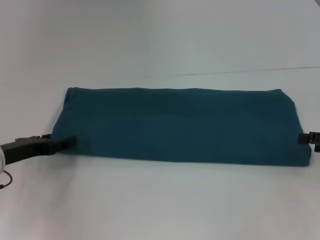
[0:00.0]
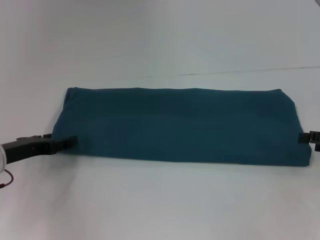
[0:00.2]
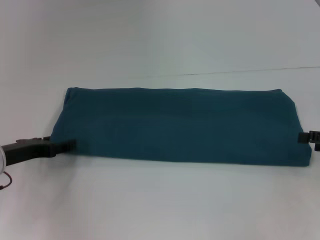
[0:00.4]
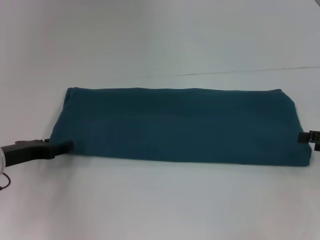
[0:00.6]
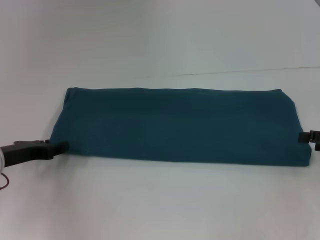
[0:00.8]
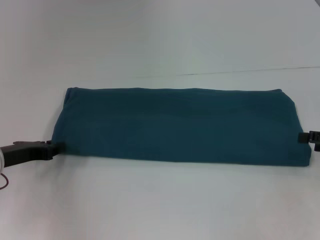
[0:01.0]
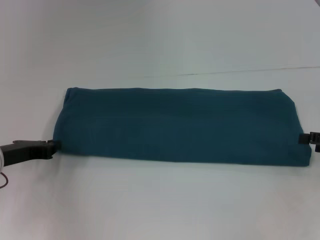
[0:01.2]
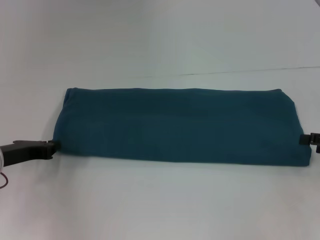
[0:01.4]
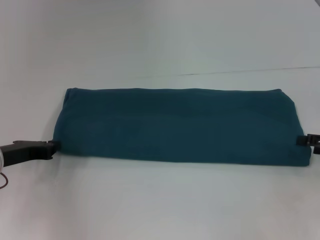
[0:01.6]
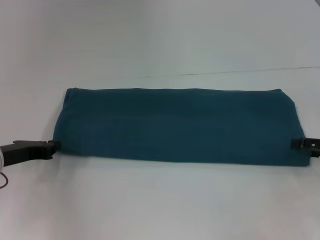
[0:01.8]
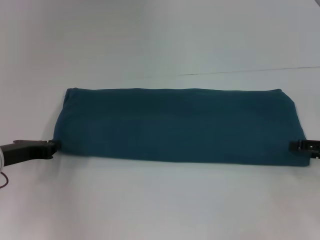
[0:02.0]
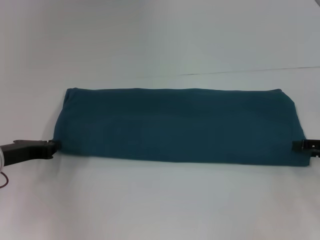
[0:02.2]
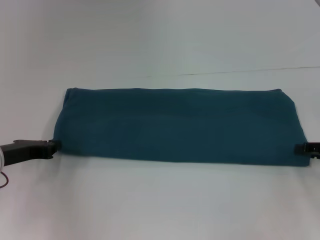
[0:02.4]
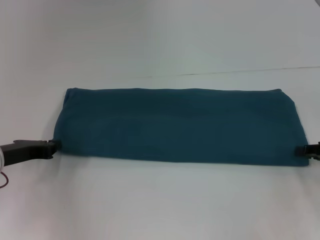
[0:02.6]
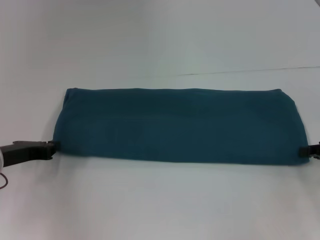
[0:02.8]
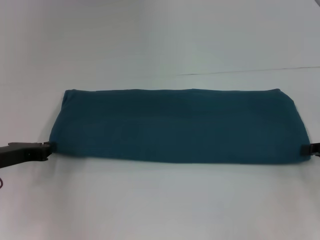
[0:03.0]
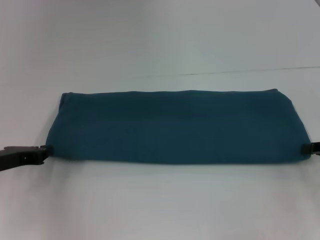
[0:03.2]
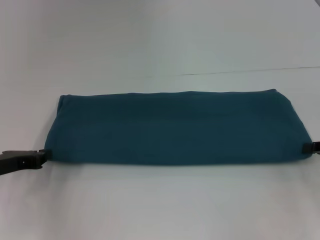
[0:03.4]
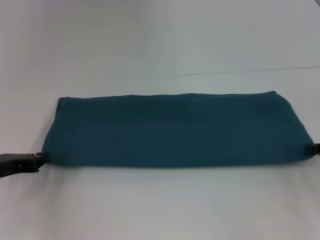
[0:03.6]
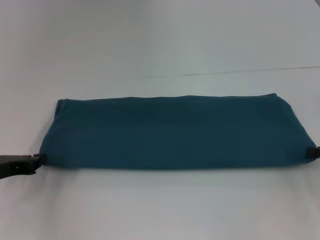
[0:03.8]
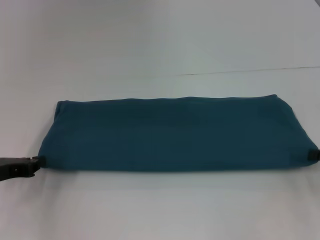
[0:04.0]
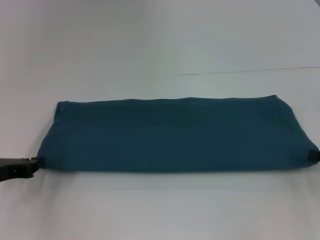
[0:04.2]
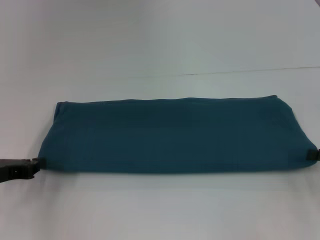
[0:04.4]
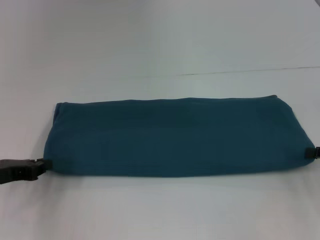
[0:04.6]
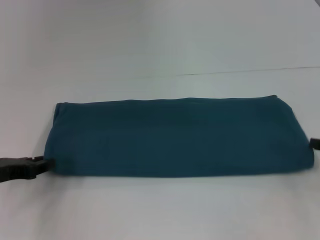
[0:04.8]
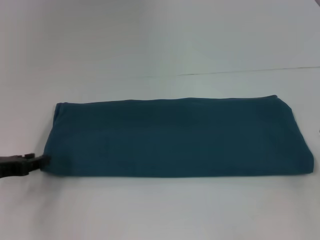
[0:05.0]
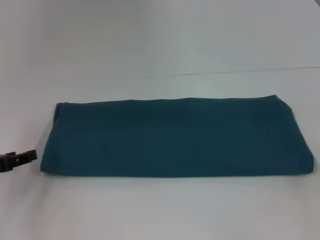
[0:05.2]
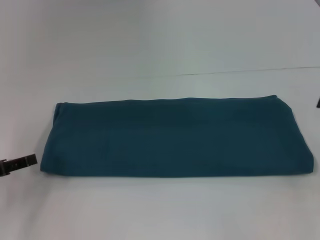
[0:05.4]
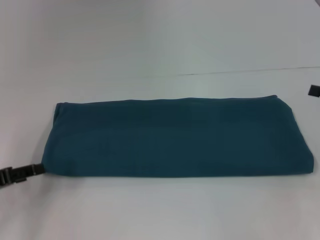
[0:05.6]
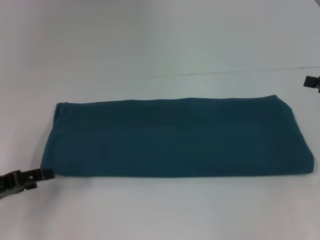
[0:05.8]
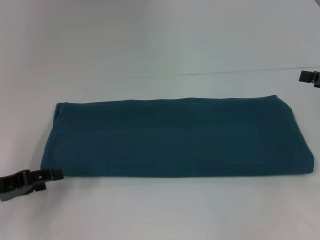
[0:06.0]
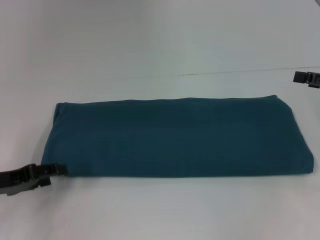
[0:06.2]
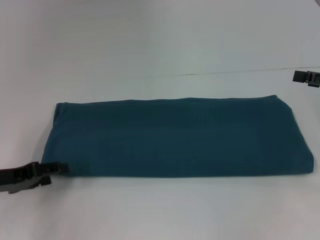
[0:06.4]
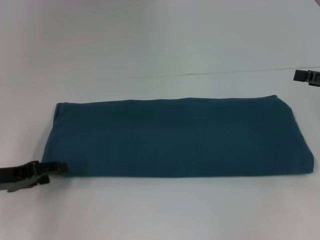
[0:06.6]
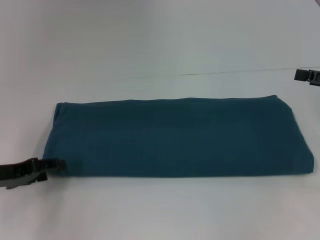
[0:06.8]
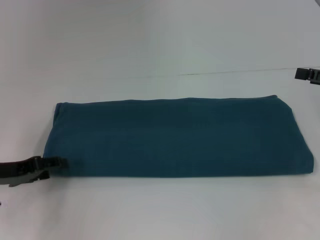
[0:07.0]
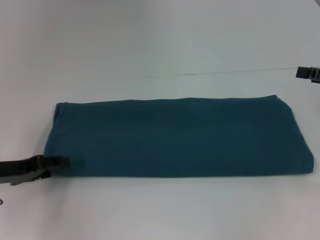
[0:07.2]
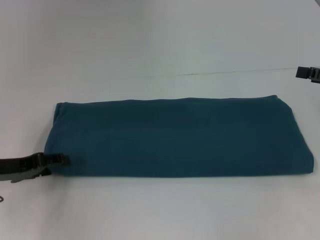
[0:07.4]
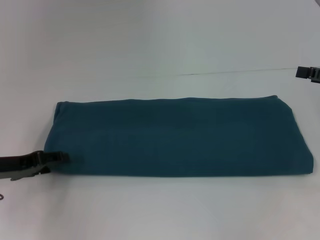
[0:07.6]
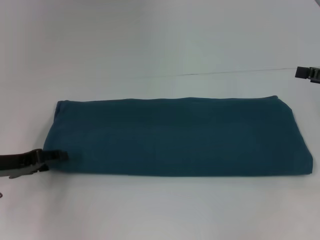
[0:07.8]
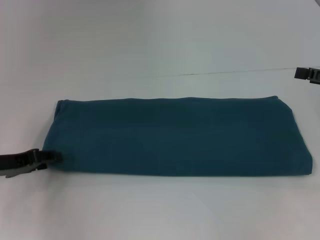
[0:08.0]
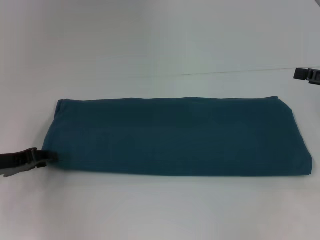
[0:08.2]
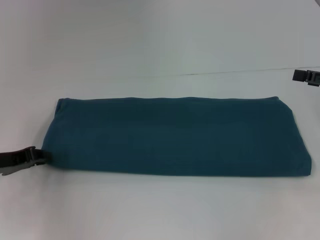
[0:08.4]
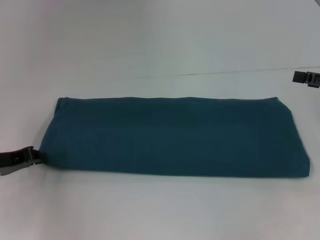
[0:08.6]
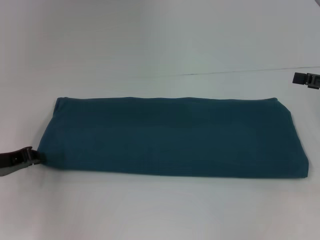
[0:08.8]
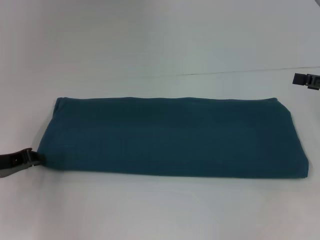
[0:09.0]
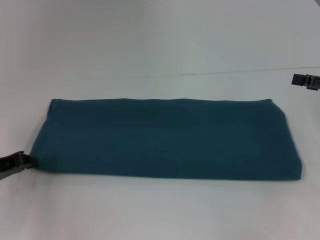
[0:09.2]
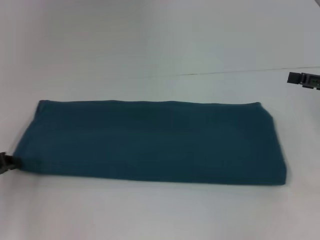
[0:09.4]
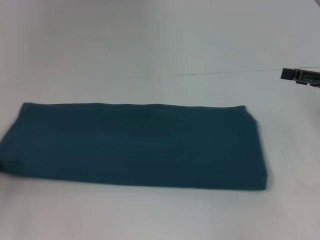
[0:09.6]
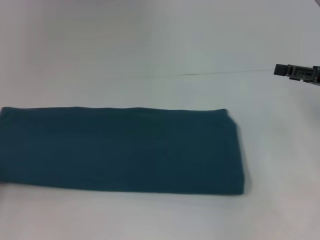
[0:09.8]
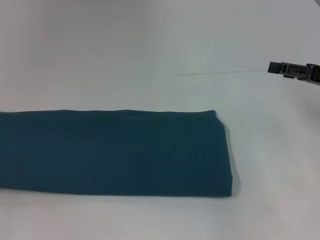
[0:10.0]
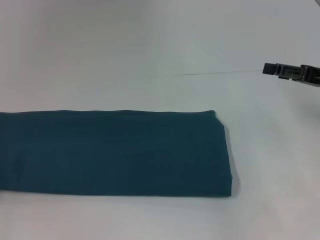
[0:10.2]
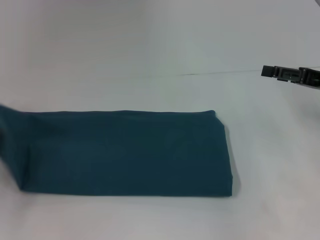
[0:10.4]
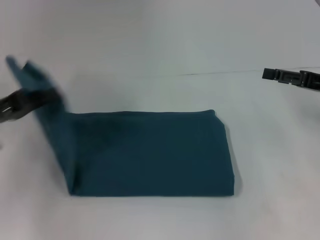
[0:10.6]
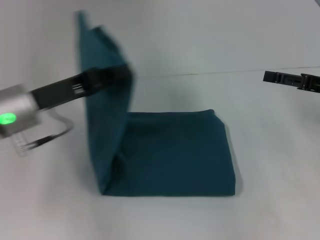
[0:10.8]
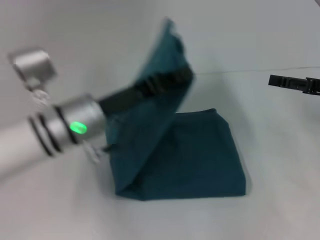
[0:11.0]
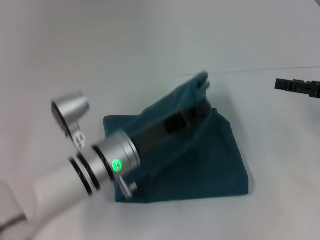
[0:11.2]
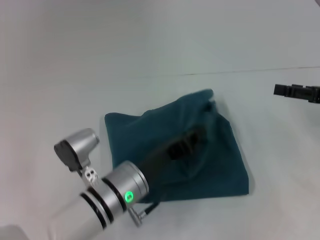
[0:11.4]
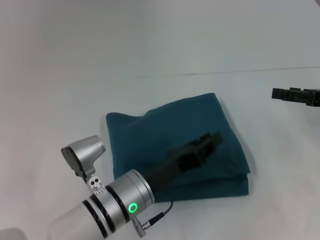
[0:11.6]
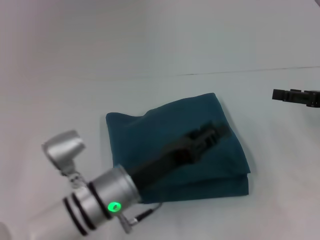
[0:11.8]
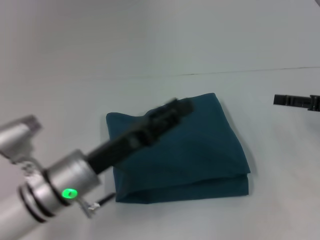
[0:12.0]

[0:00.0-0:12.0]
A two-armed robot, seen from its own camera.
Step, 0:00.0 to 0:11.6: Fold the clothes to the left.
0:00.0 to 0:01.6: The left gripper closes up.
0:01.6 to 0:03.0: The right gripper closes up.
0:03.0 to 0:04.4: The grippers move only a little.
0:04.4 to 0:06.0: The left gripper opens. Meanwhile the right gripper goes approximately 10 cm upward and forward, and opens.
0:06.0 to 0:07.6: There are only small adjustments of the grippers.
0:07.6 to 0:09.0: The left gripper closes up.
0:09.0 to 0:10.4: The left gripper travels to the left by some 5 cm.
0:10.4 to 0:12.0: The left gripper is displaced to the right by approximately 25 cm, and opens its fingers.

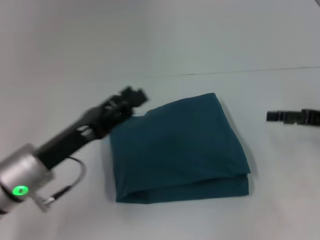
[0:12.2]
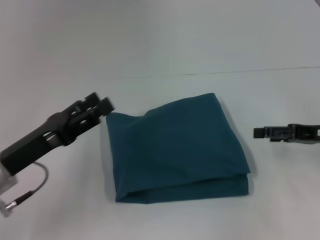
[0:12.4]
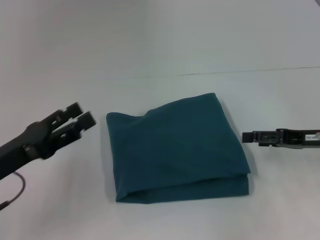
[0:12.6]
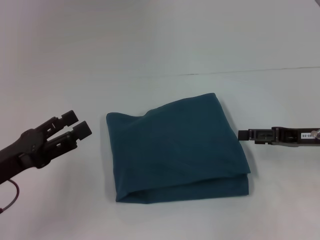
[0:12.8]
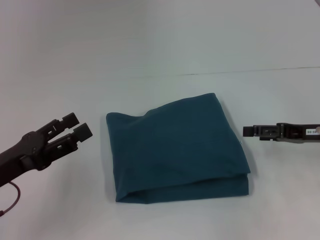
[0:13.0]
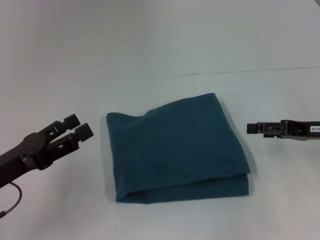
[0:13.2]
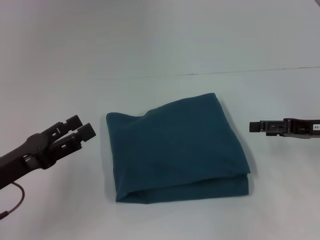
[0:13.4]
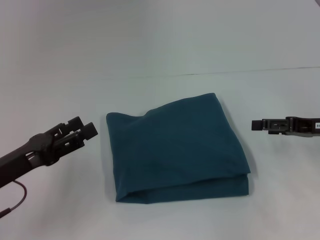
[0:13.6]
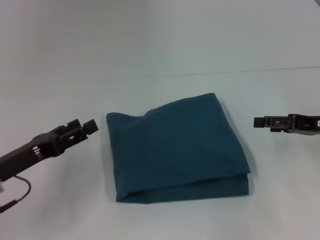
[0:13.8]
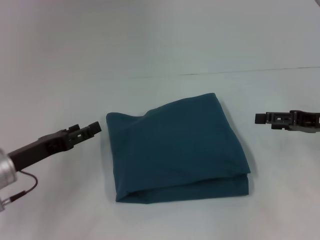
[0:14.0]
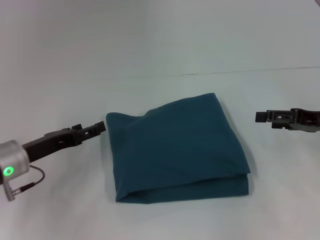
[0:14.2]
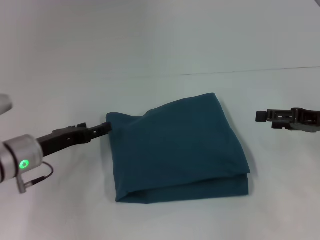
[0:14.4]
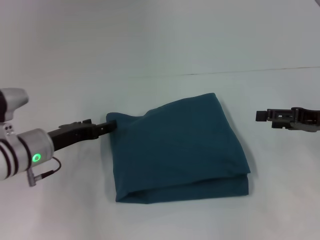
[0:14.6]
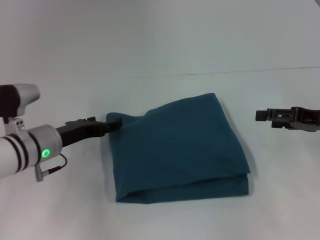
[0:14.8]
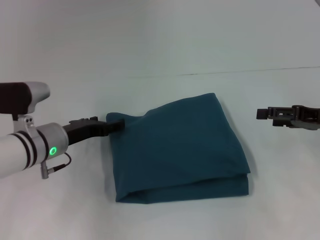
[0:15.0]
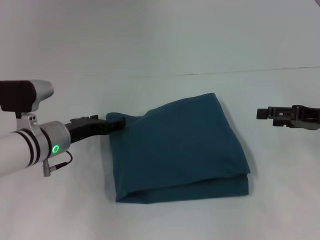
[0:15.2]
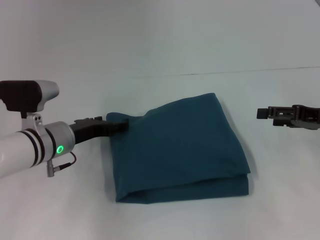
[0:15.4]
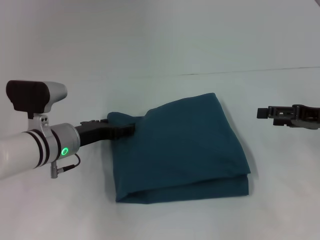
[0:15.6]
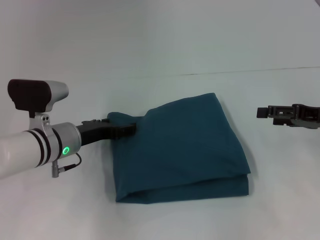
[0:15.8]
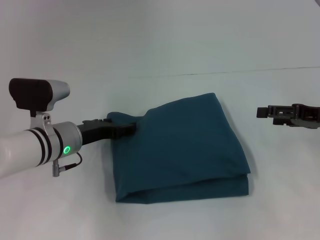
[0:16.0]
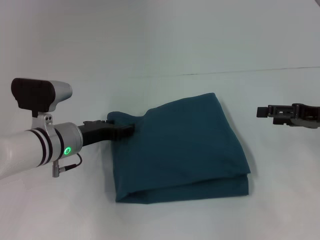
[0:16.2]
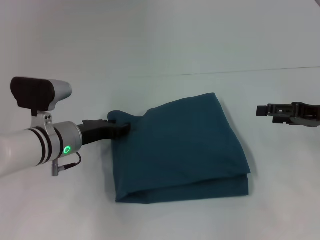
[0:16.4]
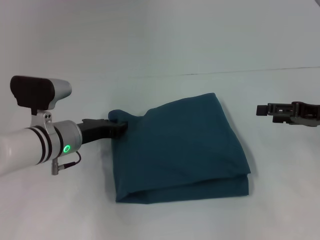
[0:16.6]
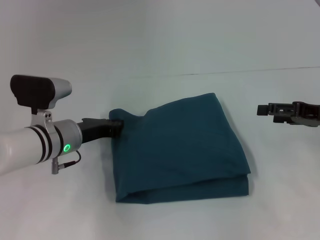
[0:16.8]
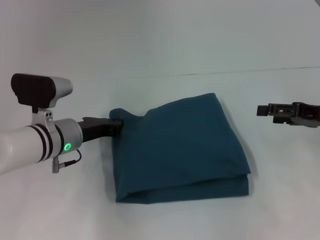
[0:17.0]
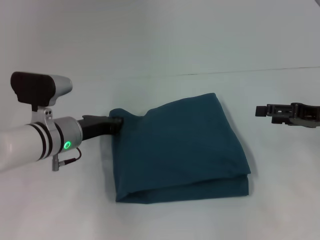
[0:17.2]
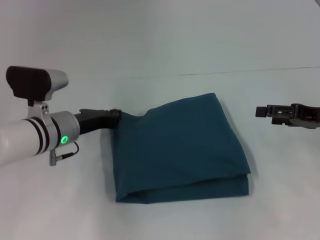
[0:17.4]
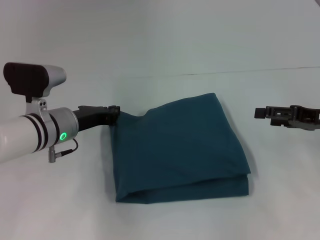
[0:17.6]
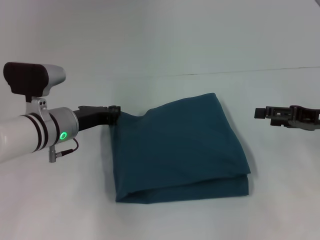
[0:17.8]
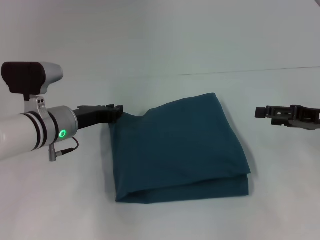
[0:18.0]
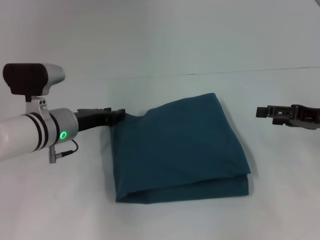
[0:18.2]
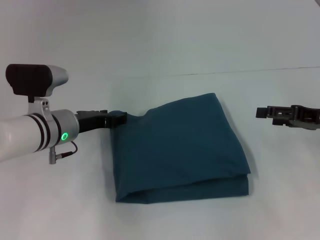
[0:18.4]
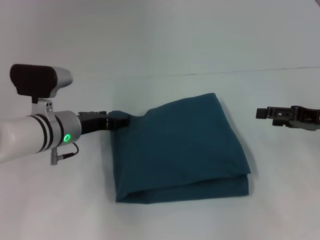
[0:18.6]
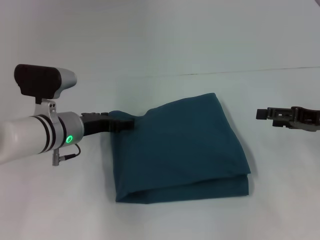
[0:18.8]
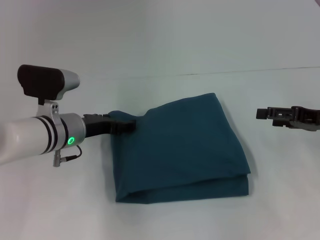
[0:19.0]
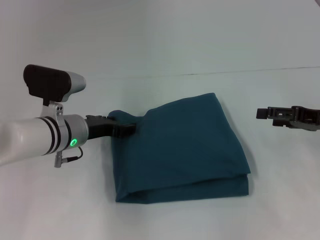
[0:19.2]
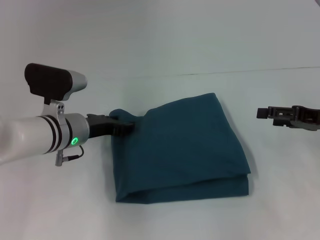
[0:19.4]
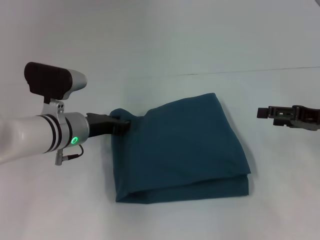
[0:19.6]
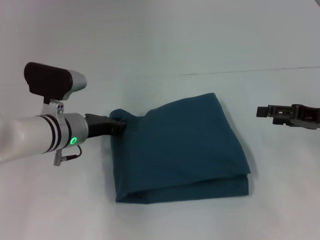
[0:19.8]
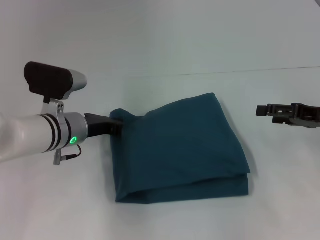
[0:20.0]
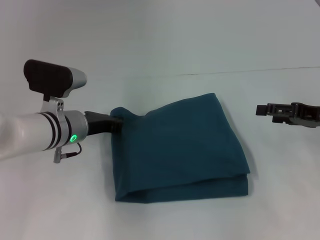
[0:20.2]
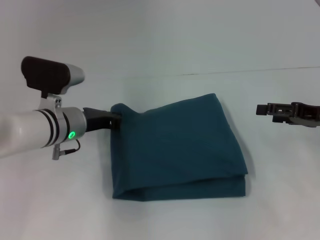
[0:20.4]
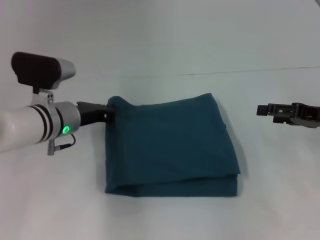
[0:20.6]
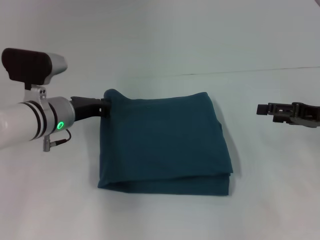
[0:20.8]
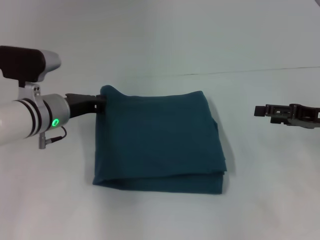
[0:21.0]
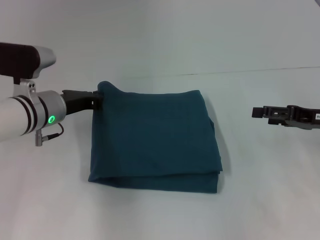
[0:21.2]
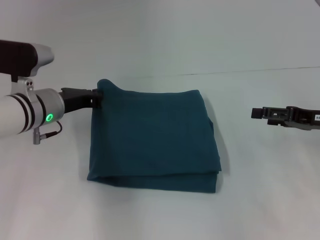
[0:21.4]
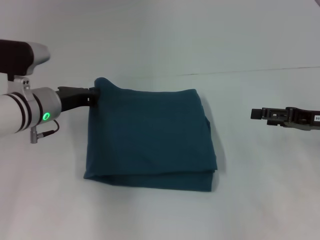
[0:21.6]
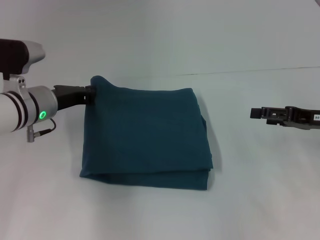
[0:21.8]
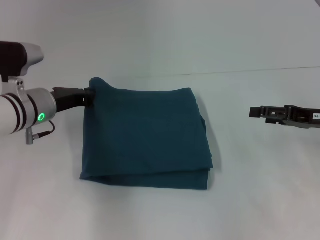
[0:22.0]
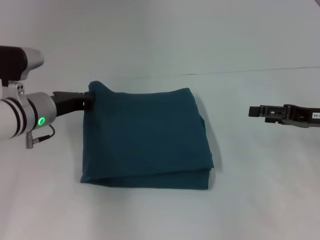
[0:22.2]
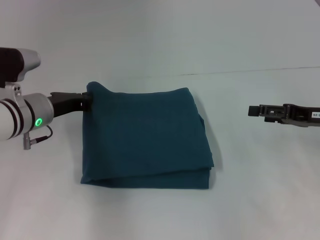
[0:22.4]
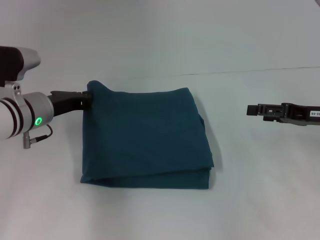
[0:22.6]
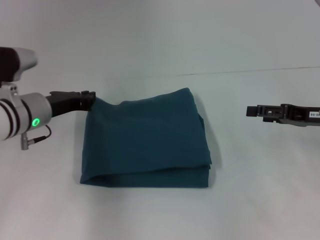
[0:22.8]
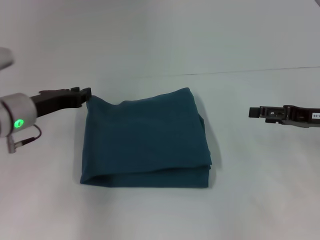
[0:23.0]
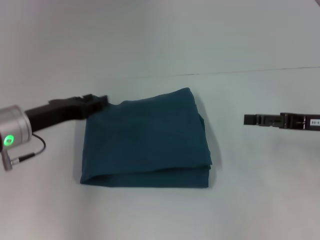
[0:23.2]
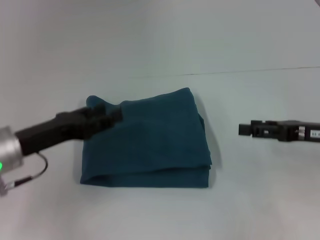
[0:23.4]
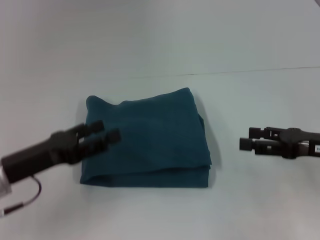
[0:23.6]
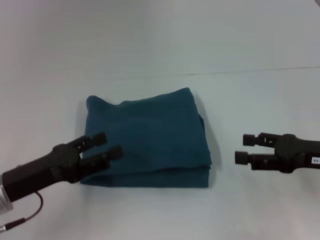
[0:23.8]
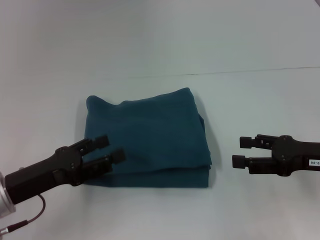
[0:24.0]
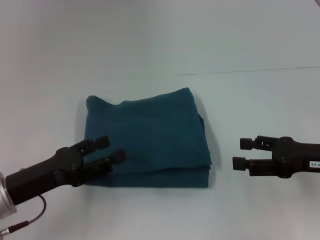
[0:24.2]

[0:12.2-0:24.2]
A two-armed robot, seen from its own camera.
0:12.2 to 0:13.8: The left gripper shifts approximately 10 cm to the left.
0:13.8 to 0:15.2: The left gripper moves forward and to the right, roughly 15 cm.
0:15.2 to 0:16.6: The left gripper closes its fingers.
0:16.6 to 0:18.2: The grippers stay close to where they were, moving slightly.
0:18.2 to 0:19.8: The left gripper opens, then closes again.
0:19.8 to 0:21.2: The left gripper closes up.
0:21.2 to 0:22.6: The grippers stay close to where they were, moving slightly.
0:22.6 to 0:24.2: The left gripper shifts roughly 15 cm backward, and opens its fingers. The right gripper is displaced backward by approximately 5 cm.
